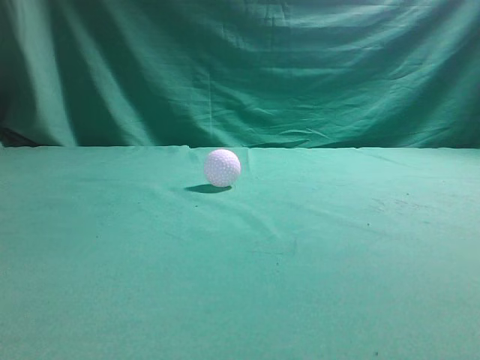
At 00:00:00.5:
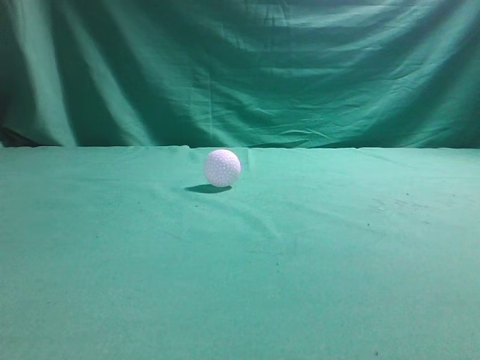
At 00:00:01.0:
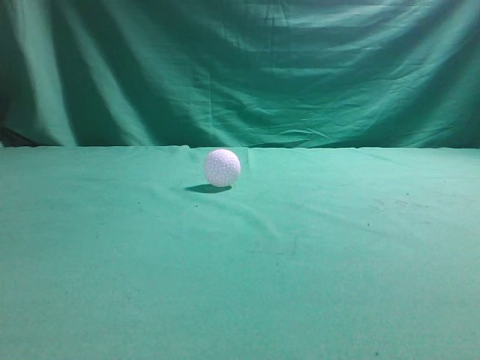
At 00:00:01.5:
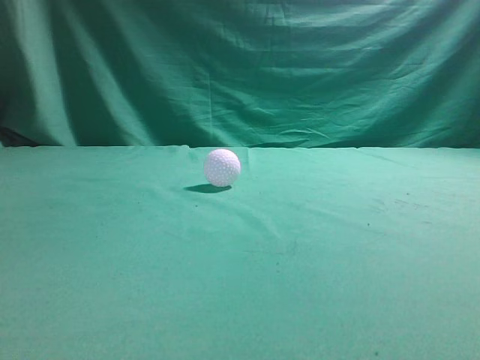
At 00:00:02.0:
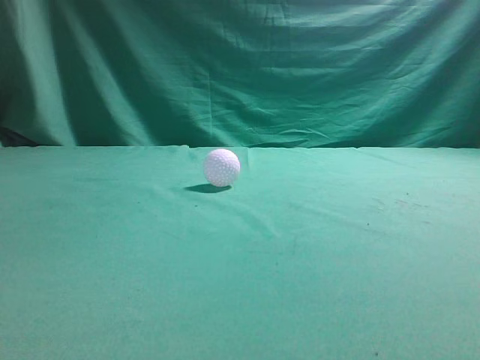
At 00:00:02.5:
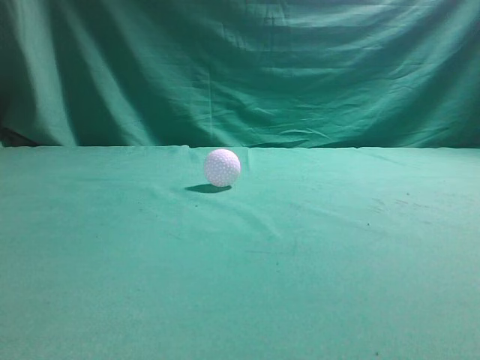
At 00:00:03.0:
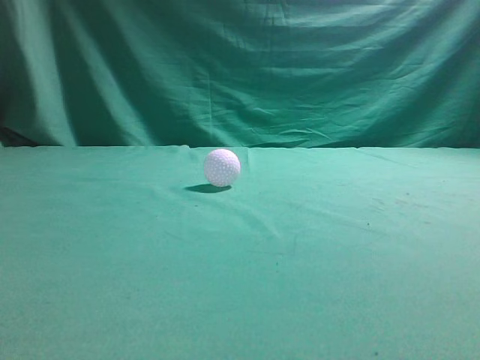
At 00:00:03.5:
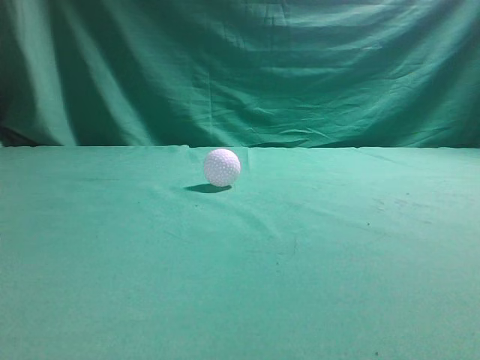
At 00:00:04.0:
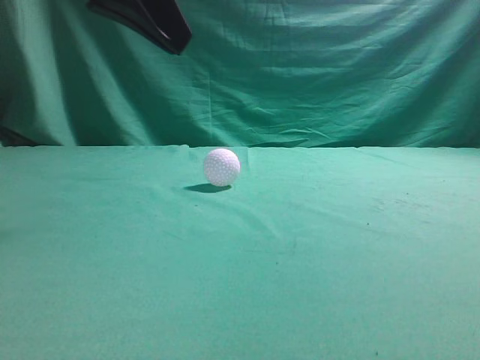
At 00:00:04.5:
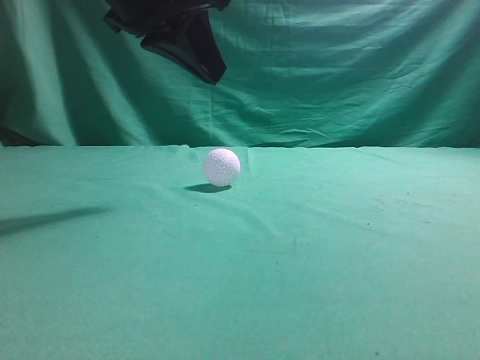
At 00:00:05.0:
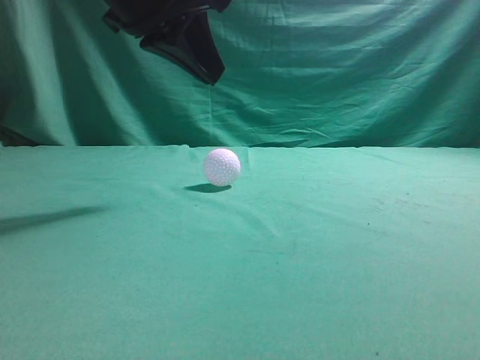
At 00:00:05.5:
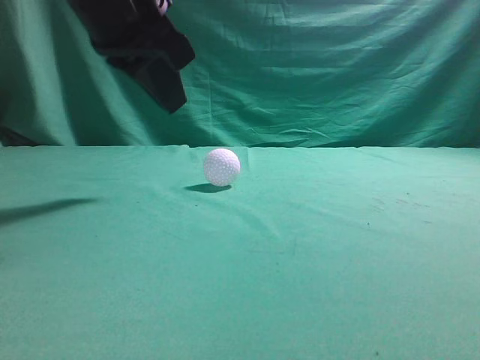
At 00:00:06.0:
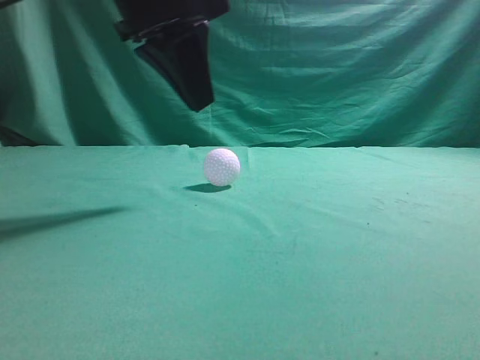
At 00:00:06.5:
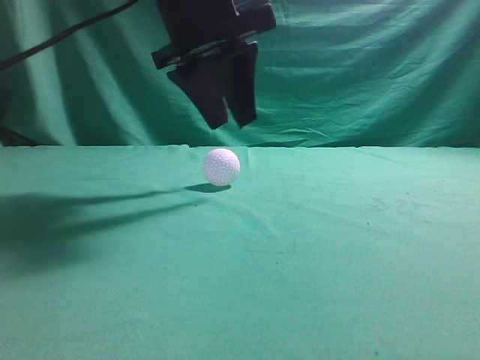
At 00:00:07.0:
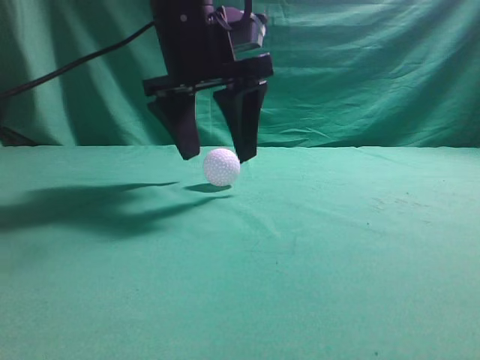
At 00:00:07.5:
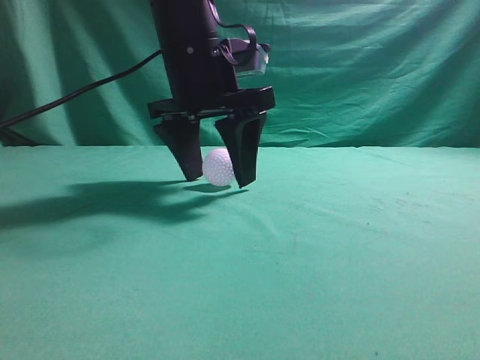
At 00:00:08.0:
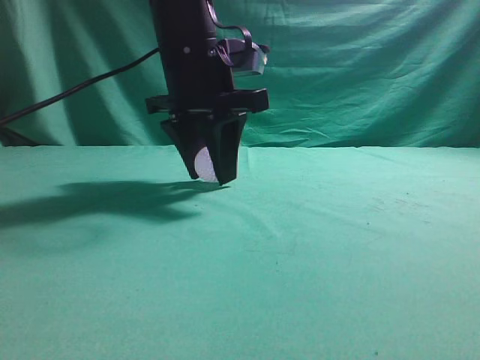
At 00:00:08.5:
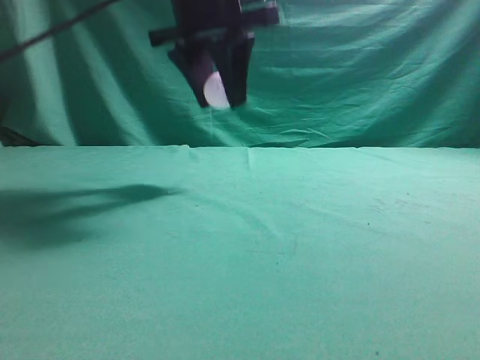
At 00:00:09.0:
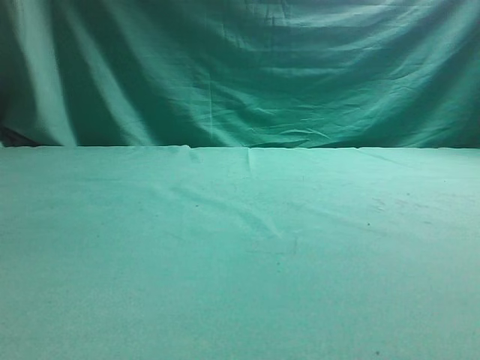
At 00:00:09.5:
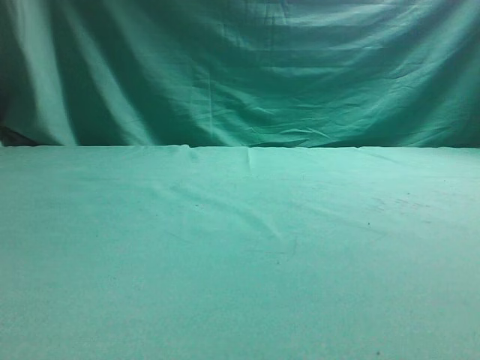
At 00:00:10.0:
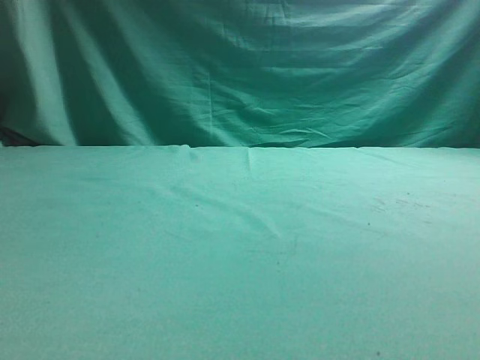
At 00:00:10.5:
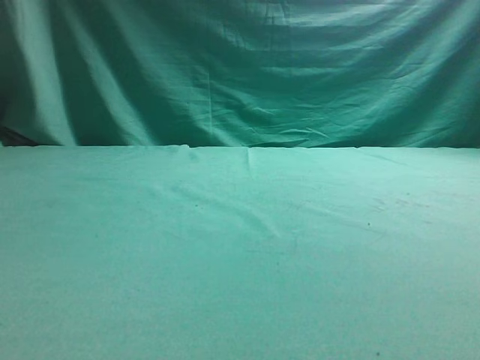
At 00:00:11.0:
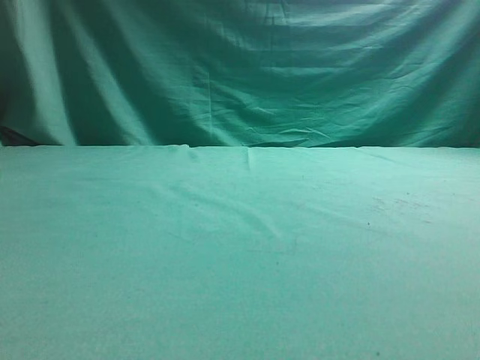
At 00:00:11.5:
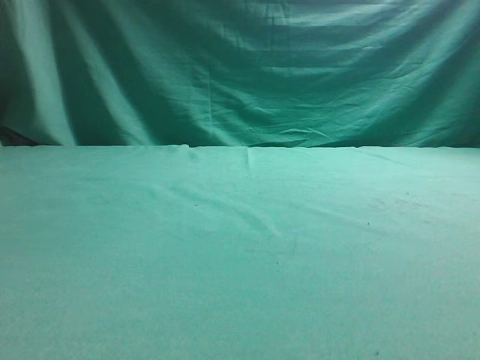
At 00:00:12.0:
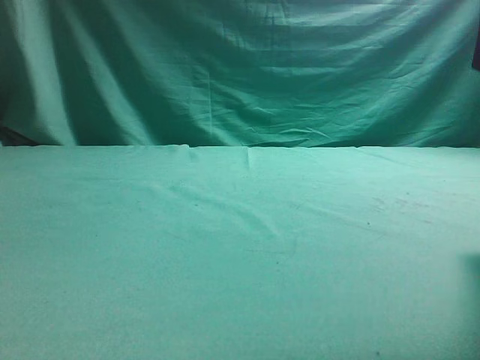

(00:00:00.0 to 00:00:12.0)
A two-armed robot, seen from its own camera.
Task of the whole recording: pick up the ball and place it on the plate, then pick up the ball from the plate and put it in the center of the table.
Step, 00:00:00.0 - 00:00:08.0: Grab the spherical object with your left arm.
00:00:02.0 - 00:00:04.0: The left gripper shifts about 25 cm forward and to the right.
00:00:04.0 - 00:00:06.0: The left gripper is displaced forward by approximately 5 cm.
00:00:06.0 - 00:00:08.0: The left gripper heads forward and downward, covering roughly 10 cm, and opens its fingers.
00:00:08.0 - 00:00:10.0: The right gripper shifts approximately 5 cm upward. Meanwhile the left gripper moves backward, upward and to the left, approximately 30 cm.
00:00:10.0 - 00:00:12.0: The right gripper moves forward and to the left, about 15 cm.

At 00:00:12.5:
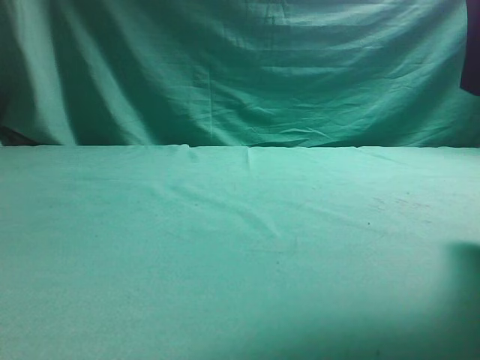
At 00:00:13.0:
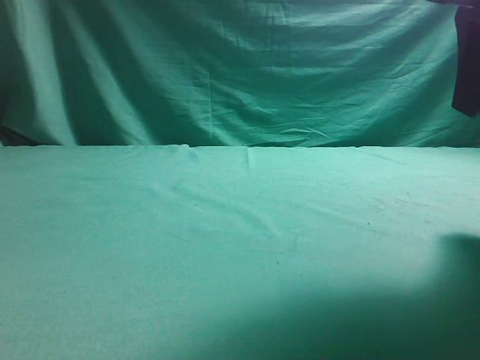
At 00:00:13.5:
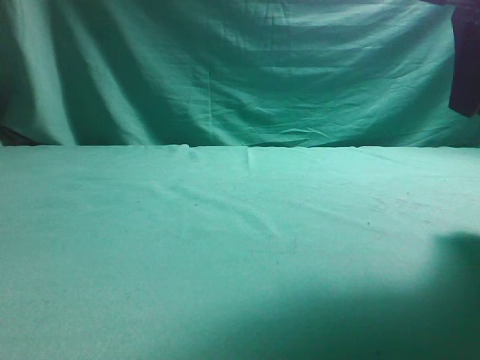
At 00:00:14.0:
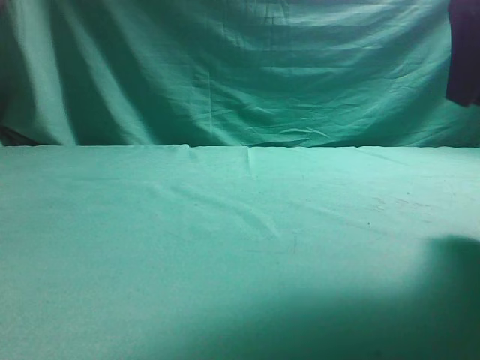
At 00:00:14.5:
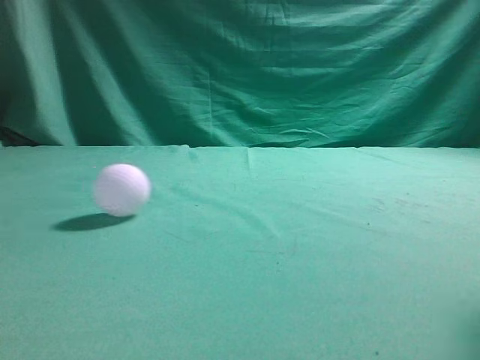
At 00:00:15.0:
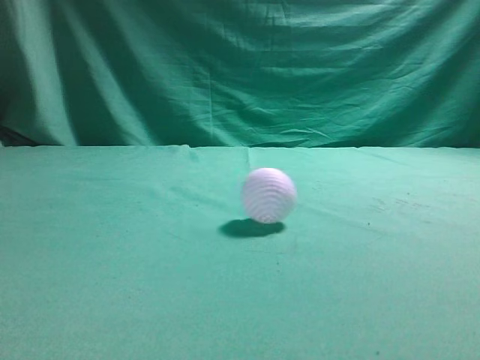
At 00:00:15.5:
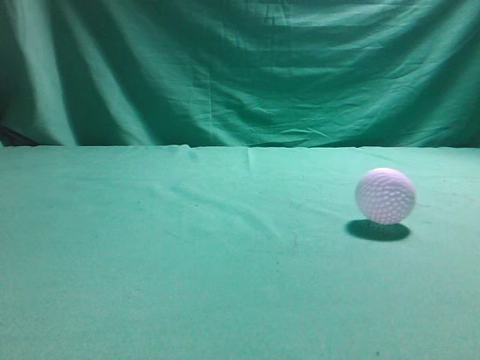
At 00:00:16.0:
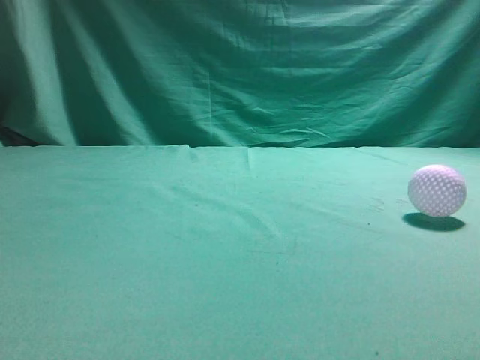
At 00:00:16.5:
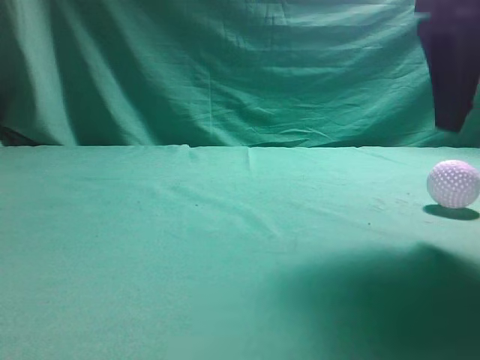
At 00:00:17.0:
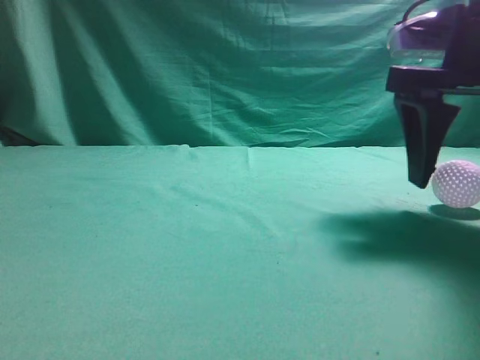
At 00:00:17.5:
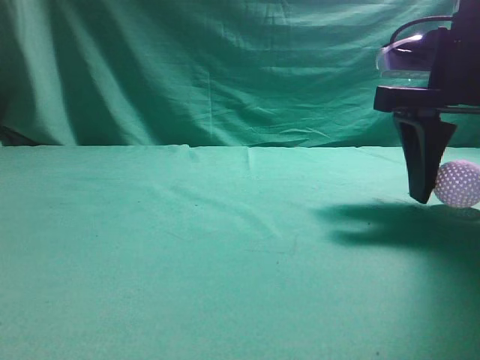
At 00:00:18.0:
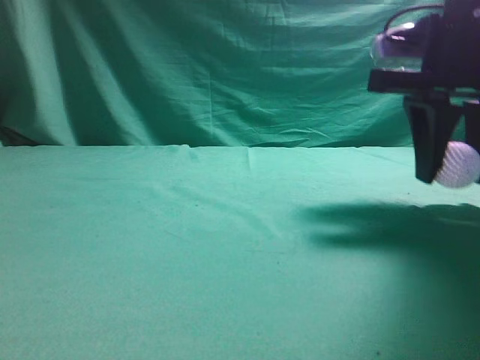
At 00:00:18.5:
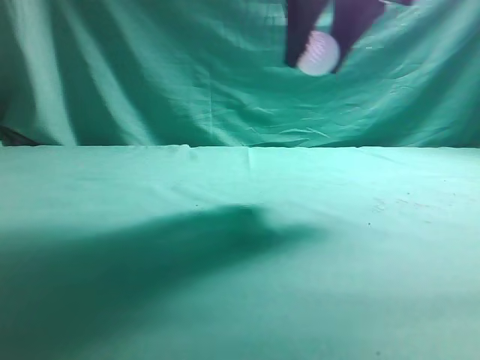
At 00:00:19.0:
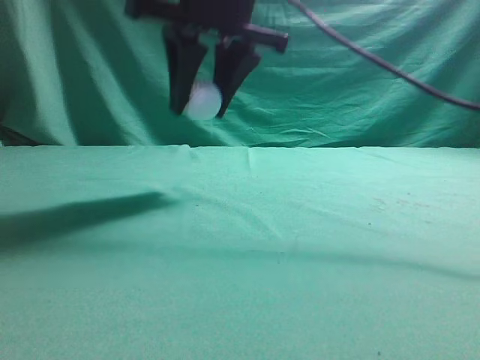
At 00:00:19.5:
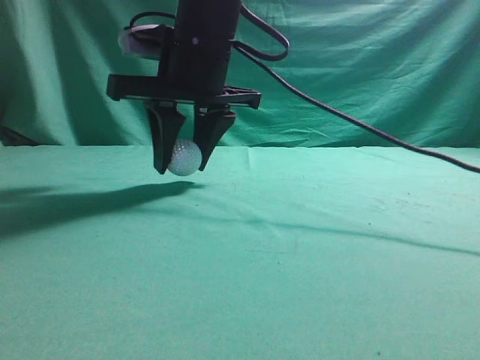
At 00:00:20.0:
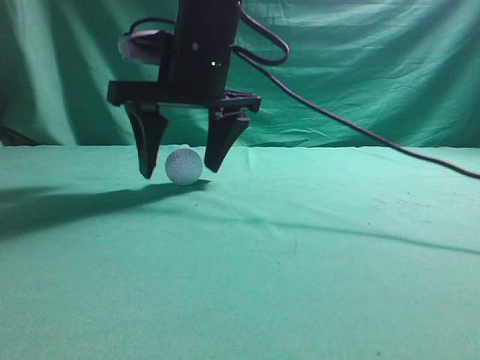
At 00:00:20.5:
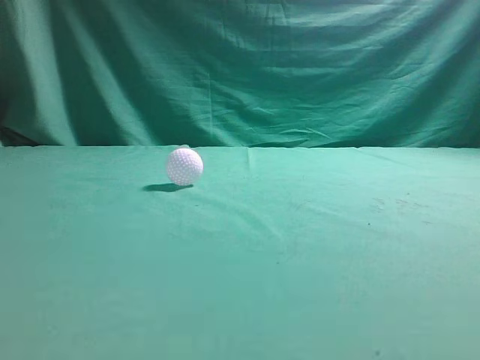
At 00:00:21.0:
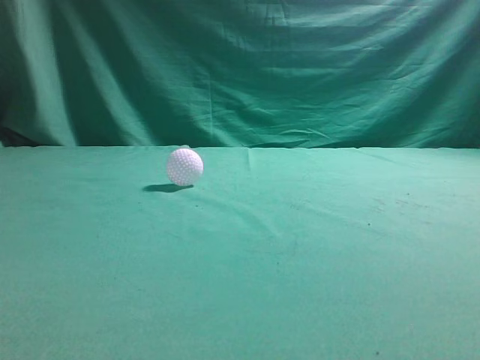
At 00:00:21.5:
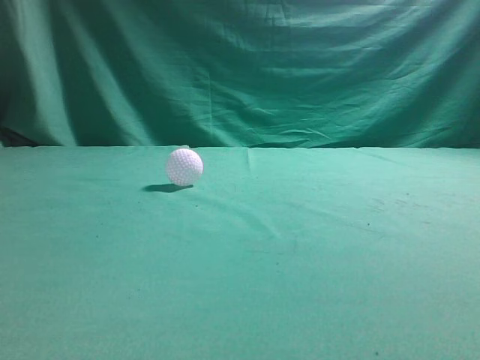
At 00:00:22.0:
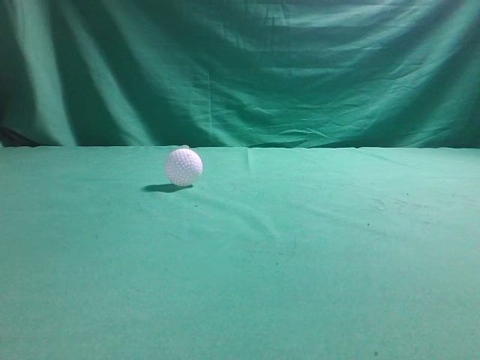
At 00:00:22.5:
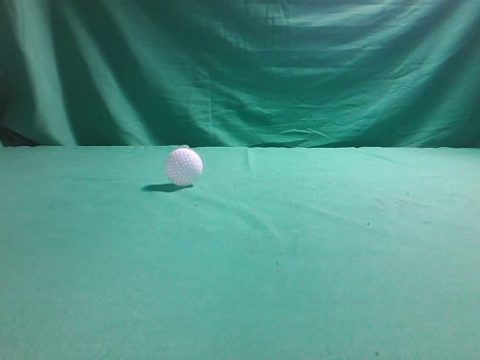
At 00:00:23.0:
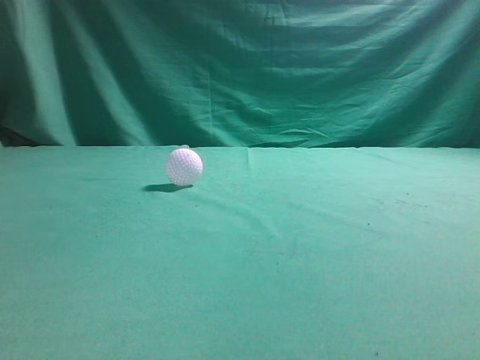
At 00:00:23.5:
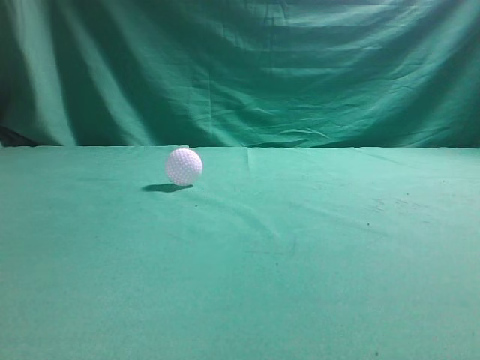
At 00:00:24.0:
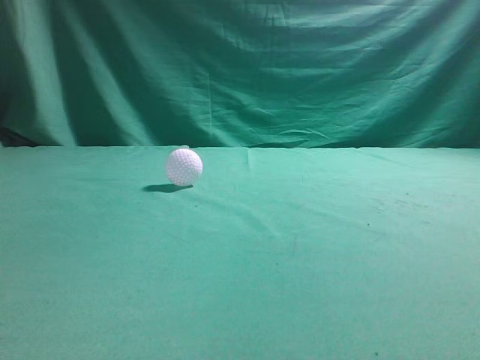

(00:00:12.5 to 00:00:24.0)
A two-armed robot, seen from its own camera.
Task of the whole recording: pick up the ball and place it on the plate, then pick up the ball from the plate and put it in the center of the table.
Step, 00:00:14.0 - 00:00:18.0: Grab the rolling spherical object.
Step, 00:00:18.5 - 00:00:20.0: Put the picked-up object on the table.
00:00:12.5 - 00:00:14.5: The left gripper goes approximately 10 cm upward, and closes its fingers. Meanwhile the right gripper goes approximately 5 cm upward.
00:00:14.5 - 00:00:16.5: The right gripper heads downward, covering approximately 5 cm, and opens up, while the left gripper goes roughly 10 cm backward.
00:00:16.5 - 00:00:18.5: The left gripper moves backward, roughly 5 cm, while the right gripper is displaced to the left and forward by some 15 cm, and closes up.
00:00:18.5 - 00:00:20.0: The right gripper goes roughly 15 cm to the left and downward; the left gripper goes some 5 cm backward.
00:00:20.0 - 00:00:22.0: The right gripper shifts roughly 40 cm backward and to the right, and closes its fingers; the left gripper heads backward, covering roughly 5 cm.
